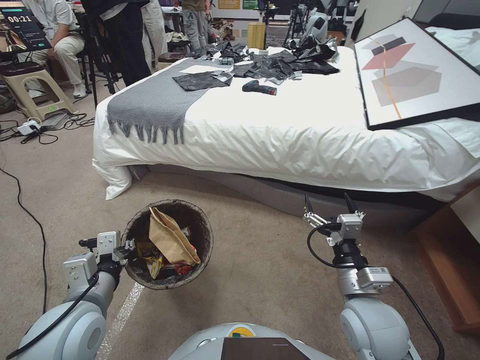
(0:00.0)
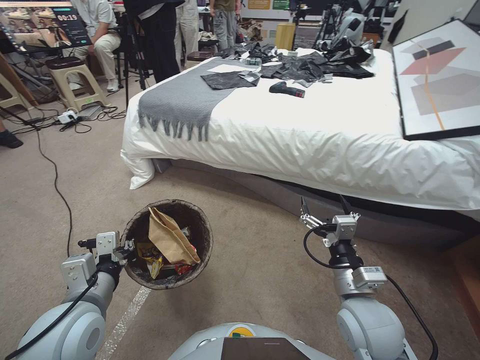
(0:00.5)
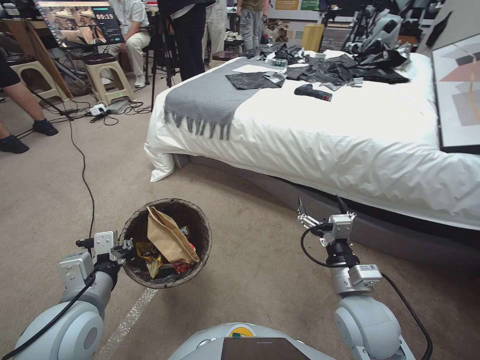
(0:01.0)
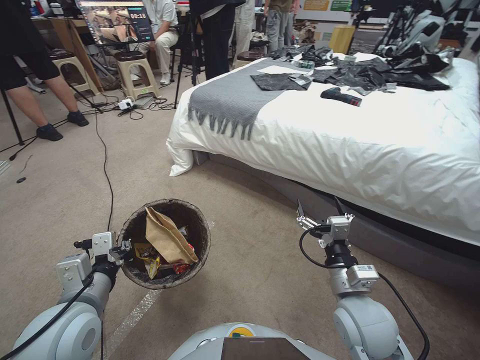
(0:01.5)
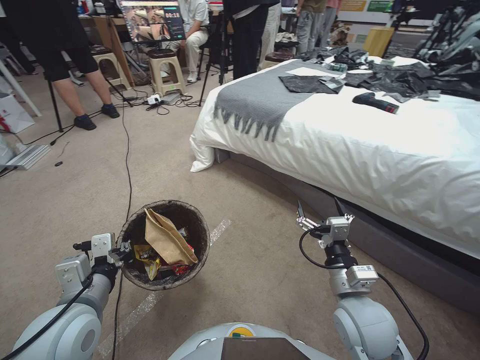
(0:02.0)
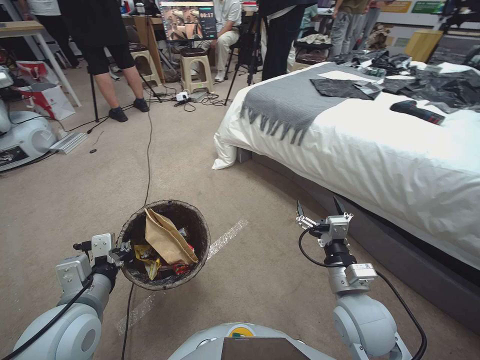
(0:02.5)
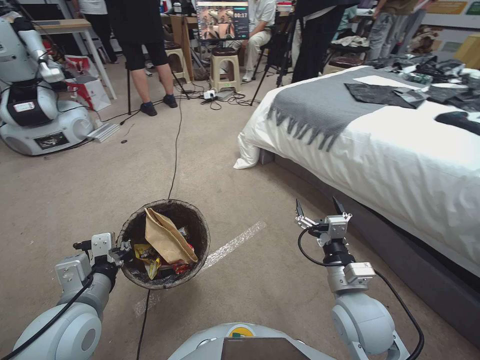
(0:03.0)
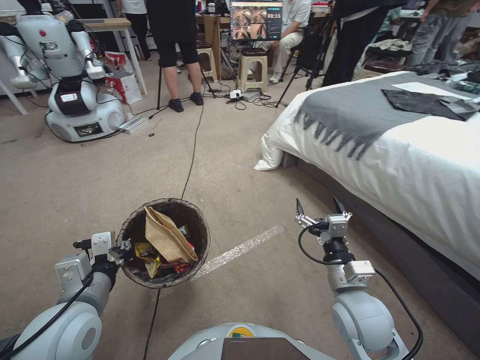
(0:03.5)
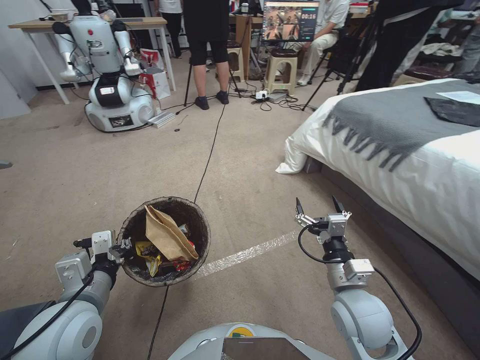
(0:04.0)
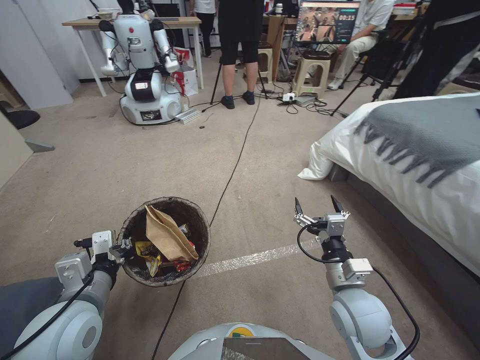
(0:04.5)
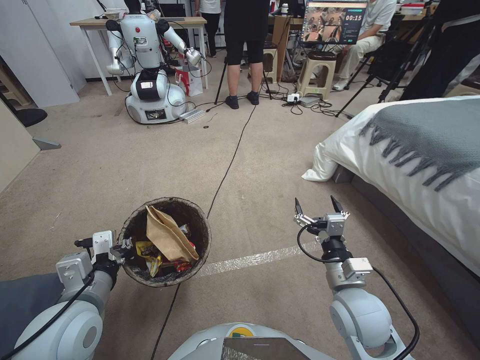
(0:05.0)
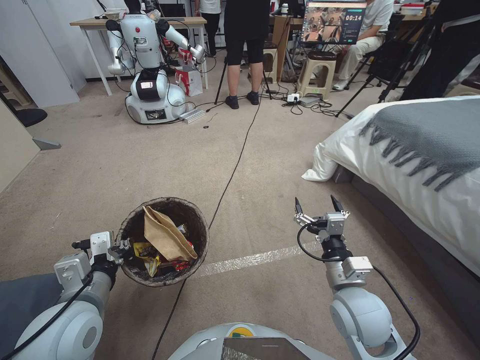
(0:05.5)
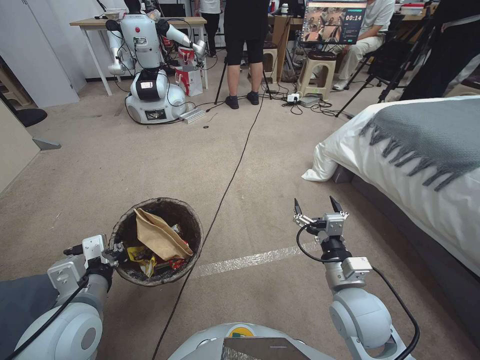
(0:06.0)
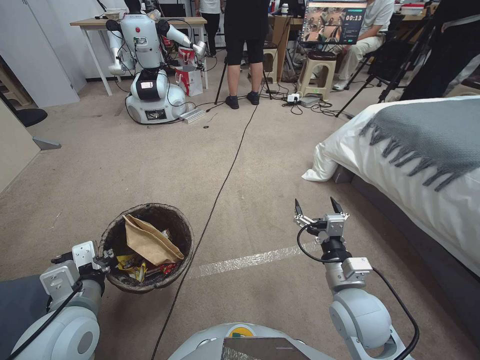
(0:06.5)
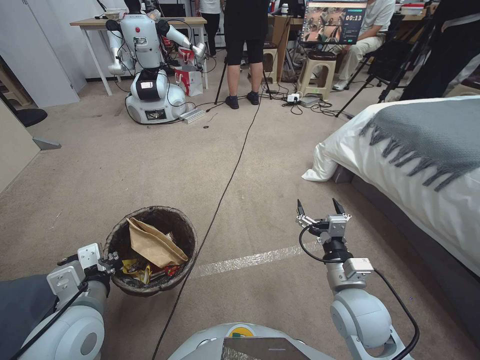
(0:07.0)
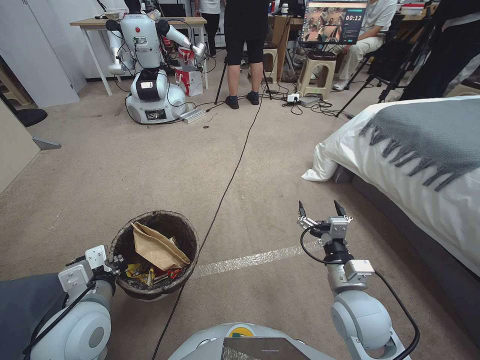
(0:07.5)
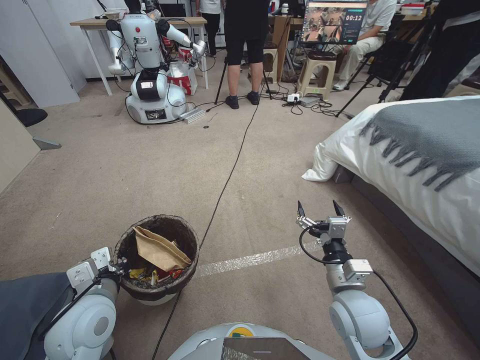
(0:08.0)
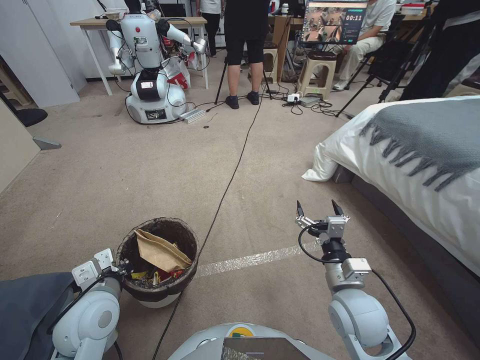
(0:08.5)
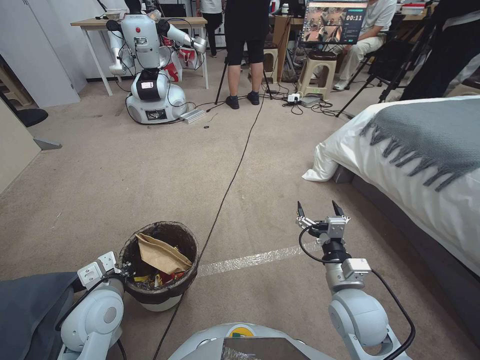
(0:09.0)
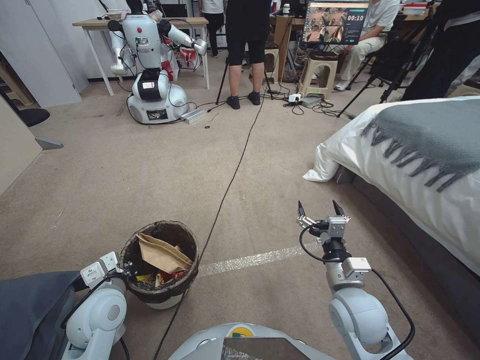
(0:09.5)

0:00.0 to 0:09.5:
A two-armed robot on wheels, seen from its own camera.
Task of the whole recording: Pick up the trash bin, then pick up the garbage from the floor and place it into the trash bin.
0:05.5 to 0:07.5: The grippers make only small movements.
0:07.5 to 0:09.5: The left gripper moves downward, approximately 5 cm.

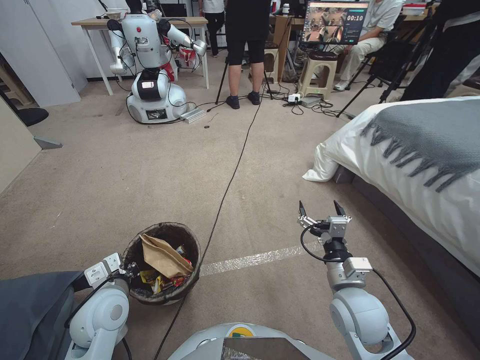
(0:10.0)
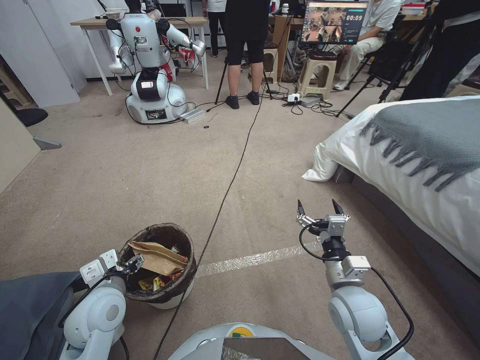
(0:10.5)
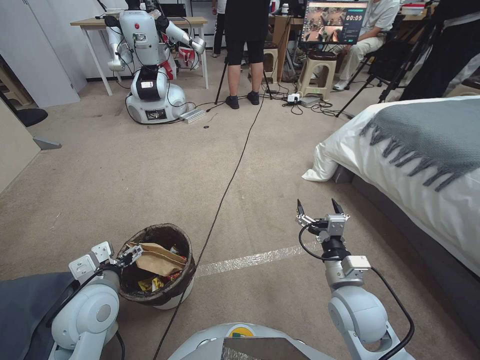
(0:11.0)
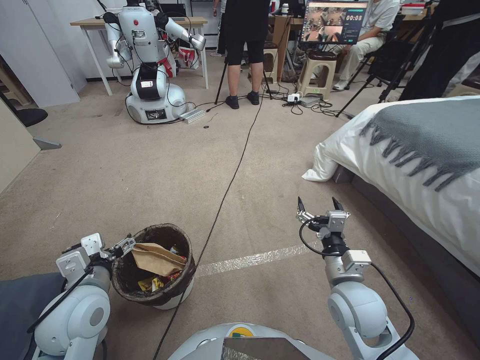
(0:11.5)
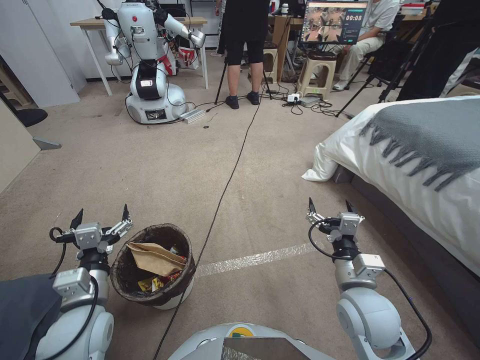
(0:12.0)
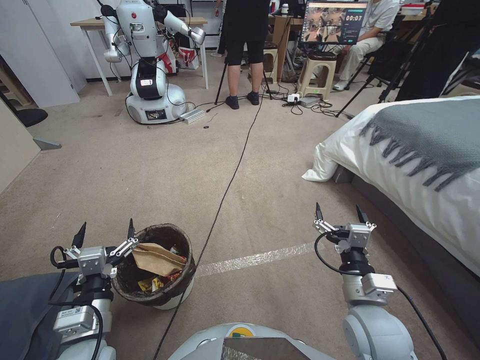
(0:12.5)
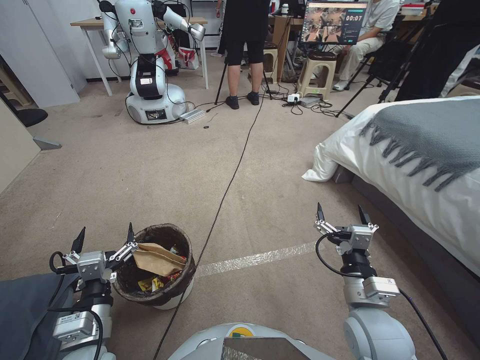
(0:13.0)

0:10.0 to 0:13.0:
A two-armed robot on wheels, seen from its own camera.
Task of the whole recording: Pick up the trash bin, then pick up the garbage from the floor and place it into the trash bin.
0:10.0 to 0:11.5: The left gripper goes roughly 5 cm upward, and opens its fingers.
0:11.5 to 0:13.0: The left gripper goes roughly 10 cm backward and downward.

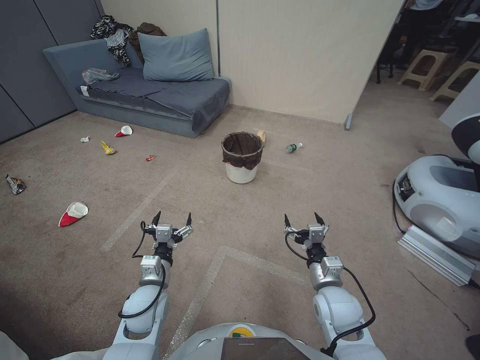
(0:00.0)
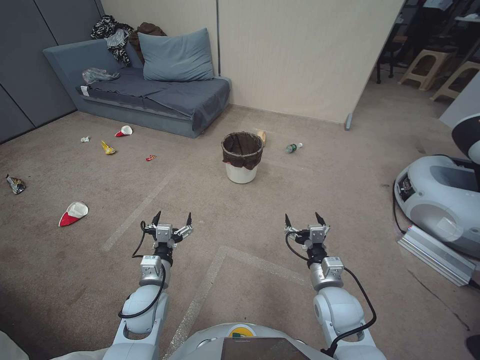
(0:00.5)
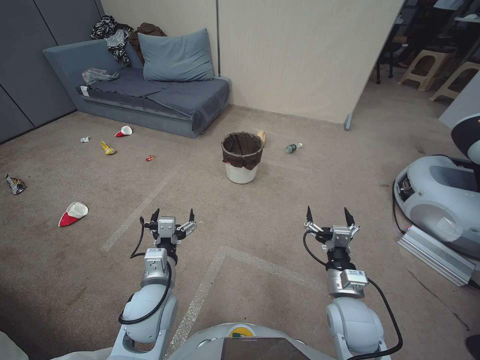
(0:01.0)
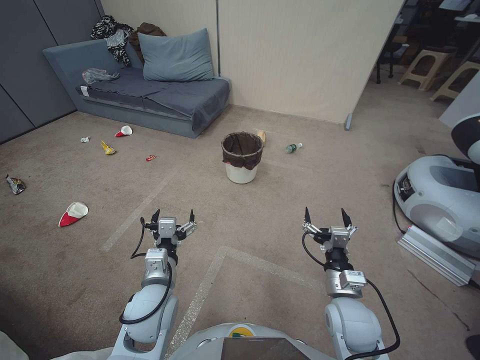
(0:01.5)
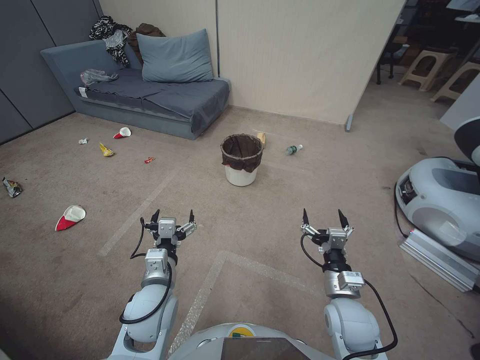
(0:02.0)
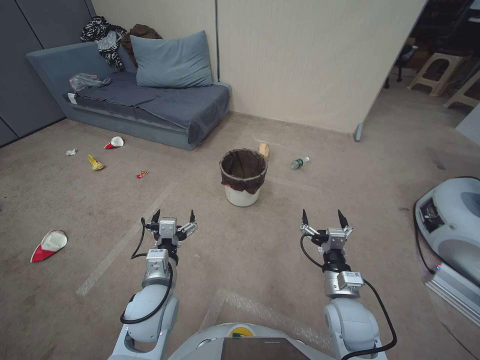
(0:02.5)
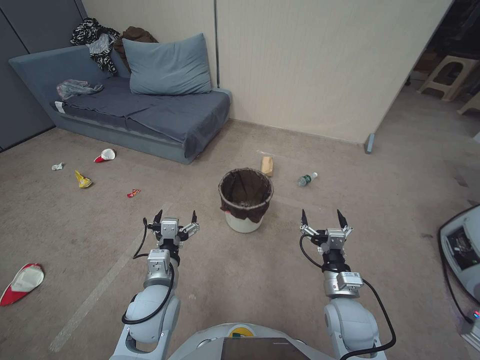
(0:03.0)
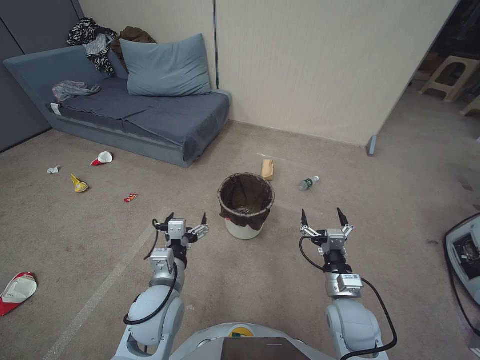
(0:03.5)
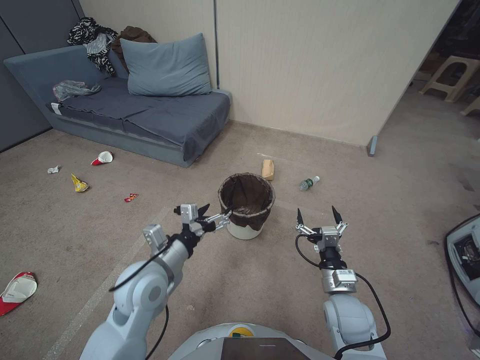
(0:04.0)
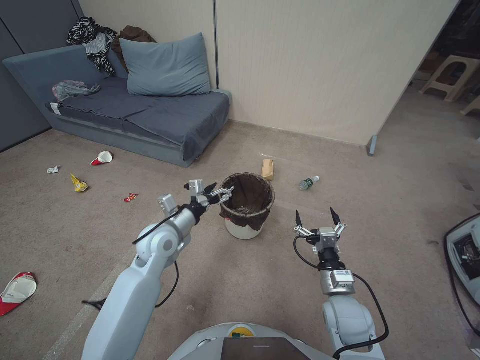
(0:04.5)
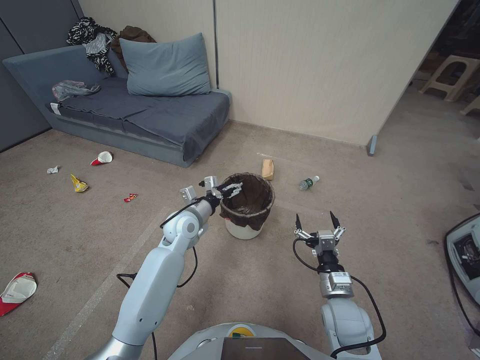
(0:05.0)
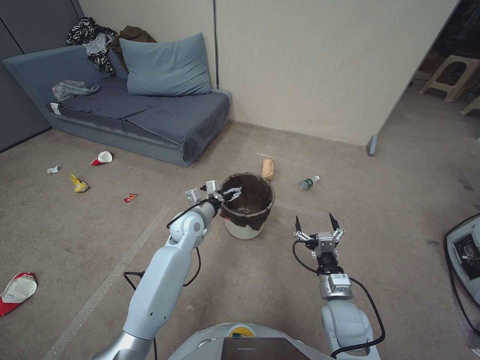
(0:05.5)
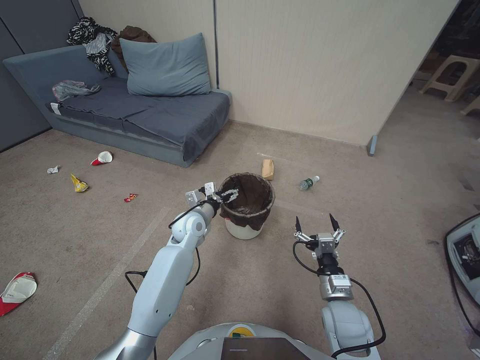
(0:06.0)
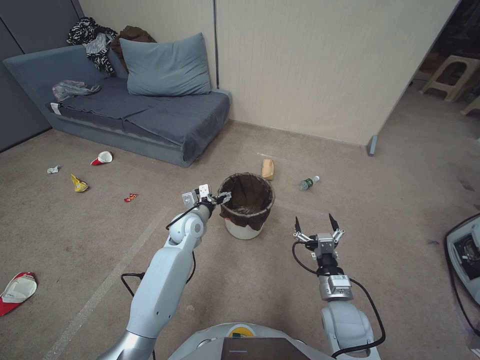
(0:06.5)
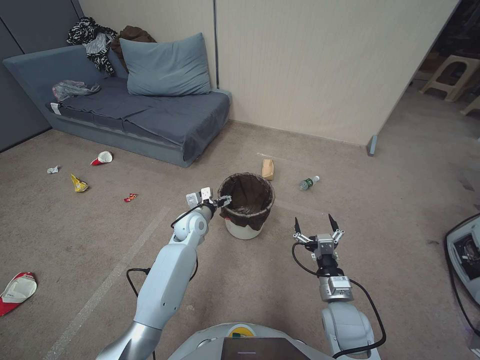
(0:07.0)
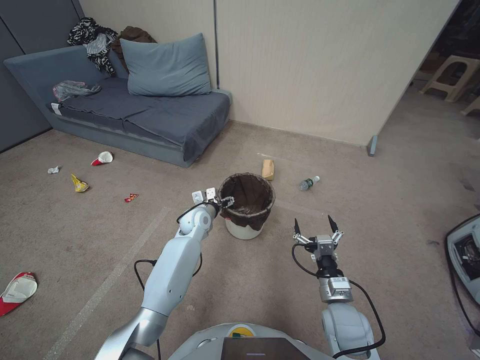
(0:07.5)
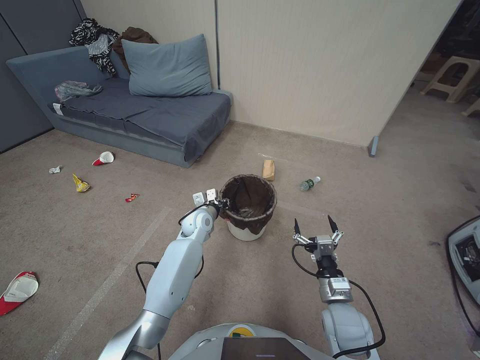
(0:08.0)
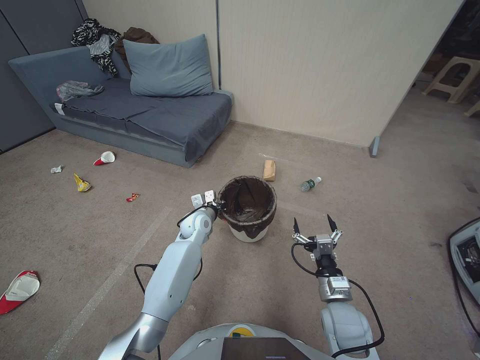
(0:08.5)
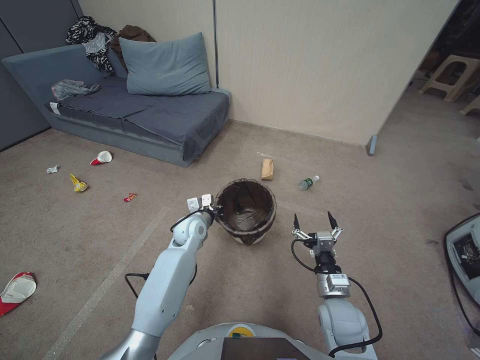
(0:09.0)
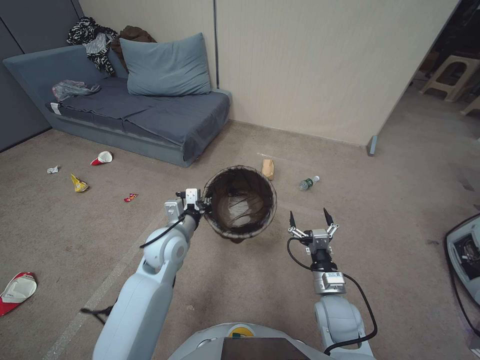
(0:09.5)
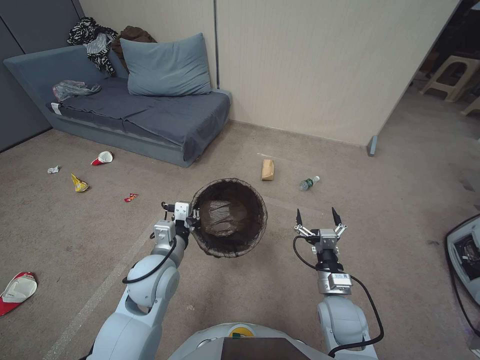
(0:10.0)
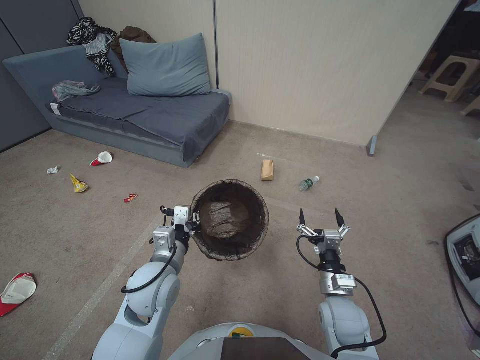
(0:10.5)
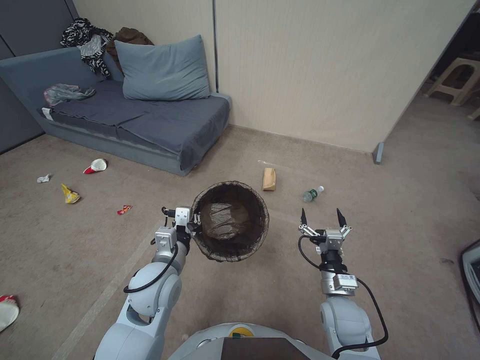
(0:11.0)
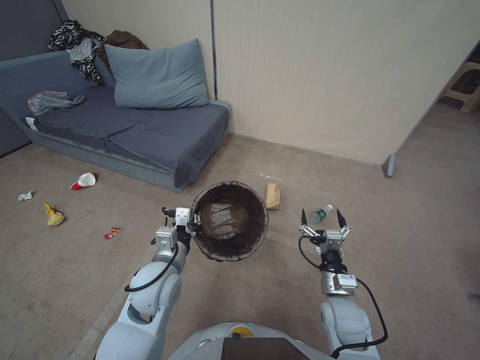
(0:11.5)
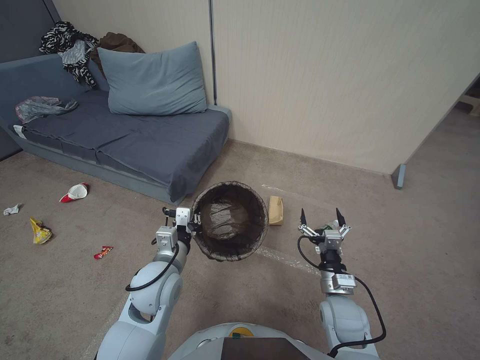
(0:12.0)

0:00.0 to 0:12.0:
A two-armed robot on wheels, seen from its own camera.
Task of the whole recording: Pick up the trash bin, then pick up the garbage from the floor and place it into the trash bin.
0:04.0 to 0:06.0: The left gripper heads forward and downward, covering roughly 20 cm.
0:06.0 to 0:08.0: The left gripper changes place by approximately 5 cm, and closes up.
0:08.0 to 0:10.0: The left gripper shifts roughly 20 cm backward and upward.

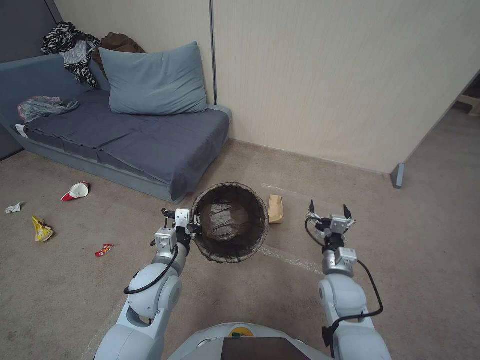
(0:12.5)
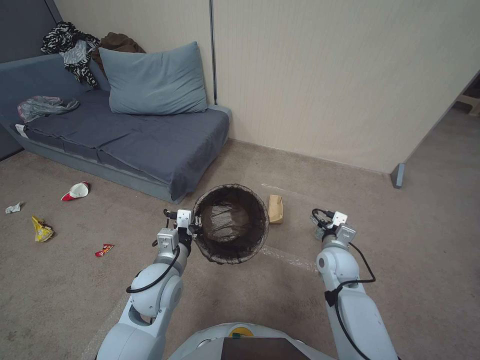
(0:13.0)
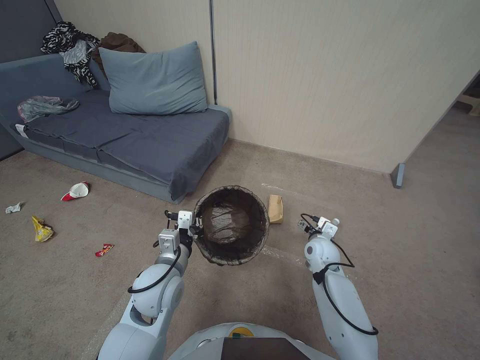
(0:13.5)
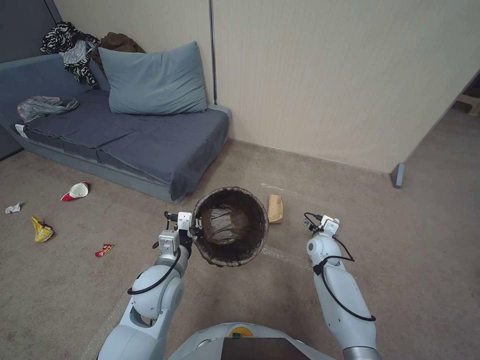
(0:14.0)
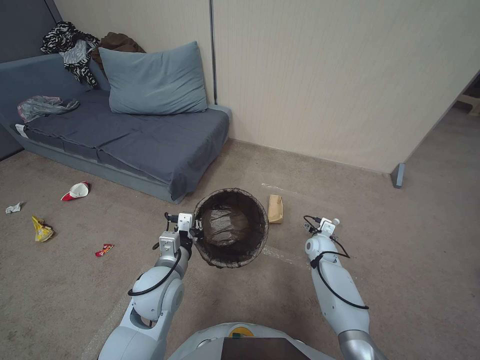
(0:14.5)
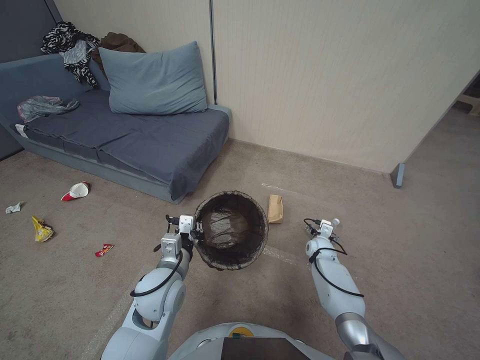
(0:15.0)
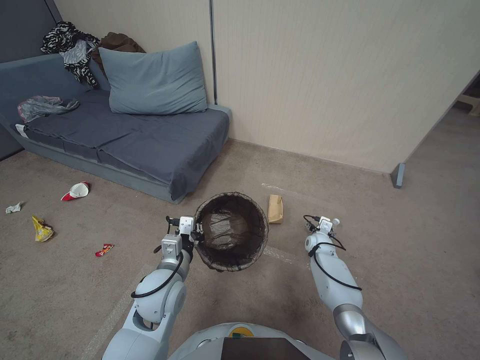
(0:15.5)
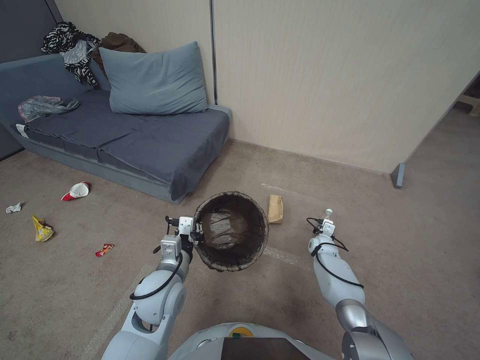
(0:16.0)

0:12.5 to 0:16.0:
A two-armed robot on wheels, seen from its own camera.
Task of the whole recording: Pick up the trash bin, then pick up the garbage from the floor and place it into the trash bin.
0:12.5 to 0:14.5: The right gripper goes about 20 cm forward and downward.
0:14.5 to 0:16.0: The right gripper is displaced downward by about 5 cm, and closes.
